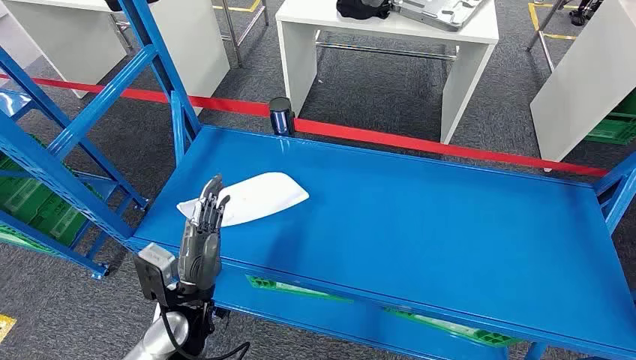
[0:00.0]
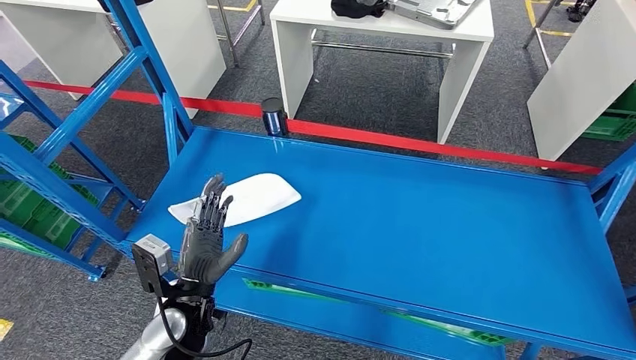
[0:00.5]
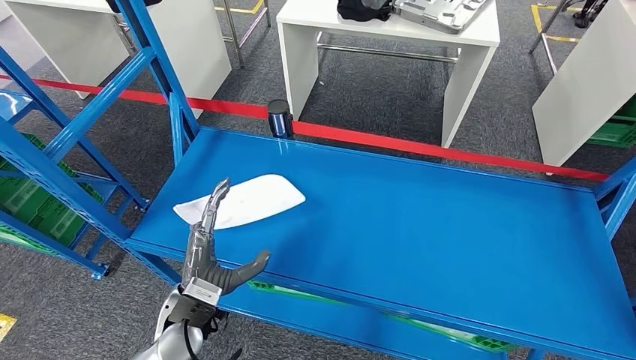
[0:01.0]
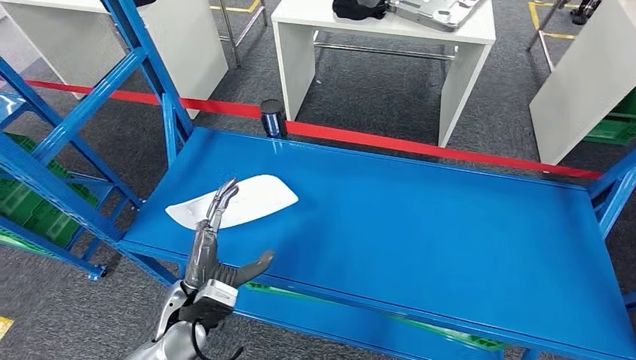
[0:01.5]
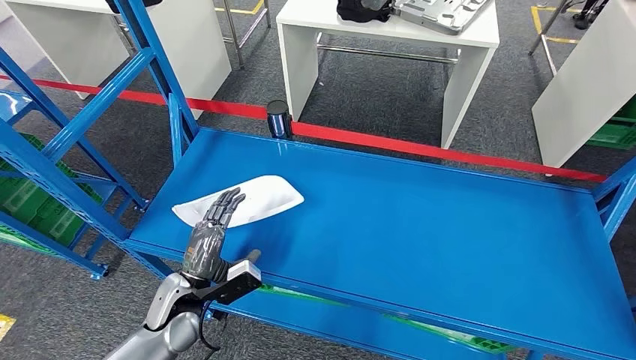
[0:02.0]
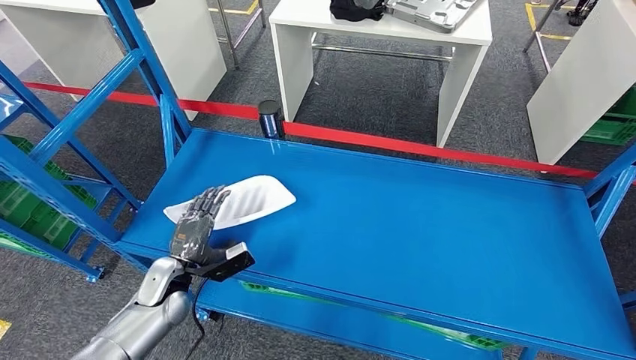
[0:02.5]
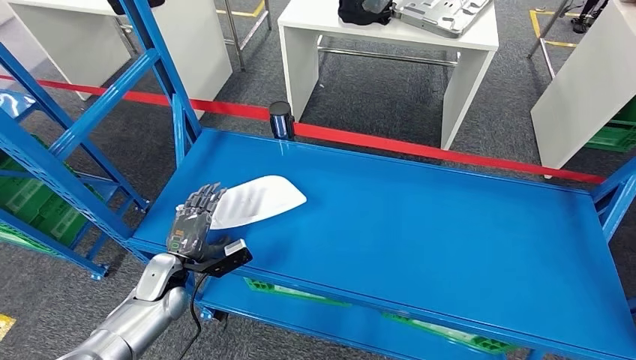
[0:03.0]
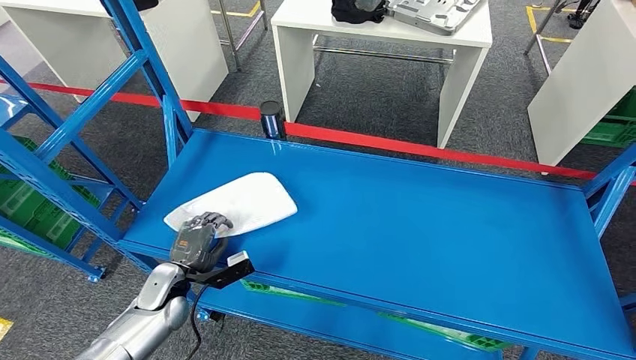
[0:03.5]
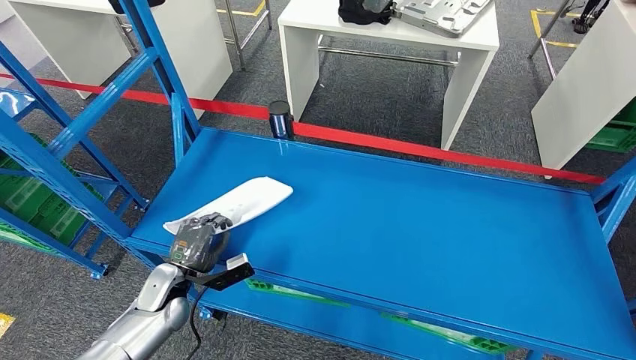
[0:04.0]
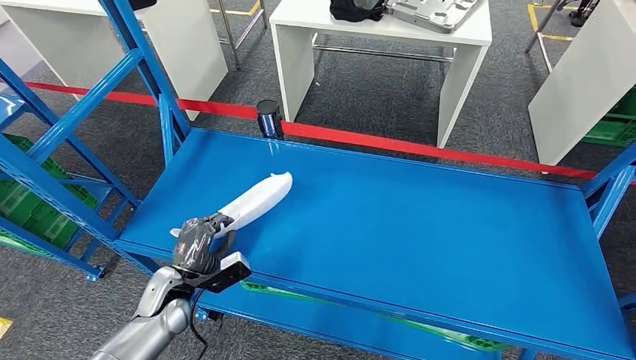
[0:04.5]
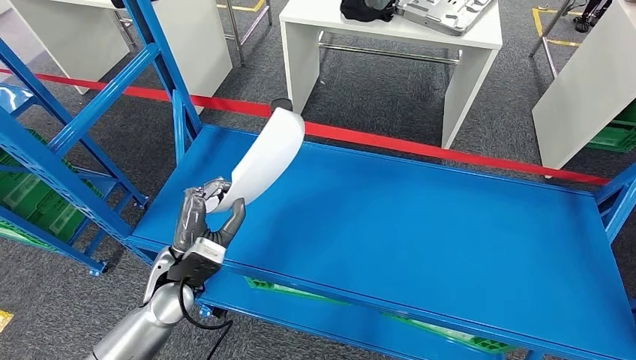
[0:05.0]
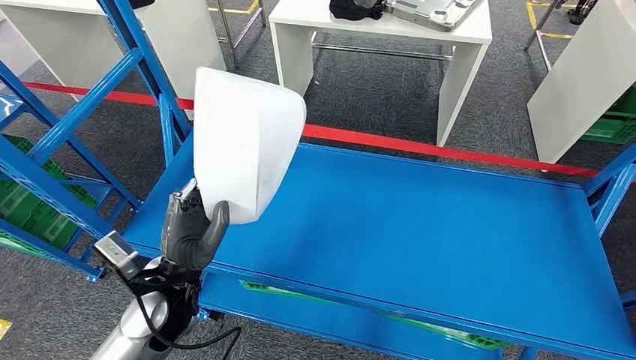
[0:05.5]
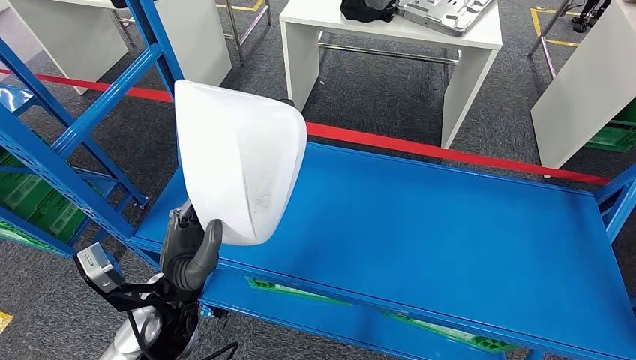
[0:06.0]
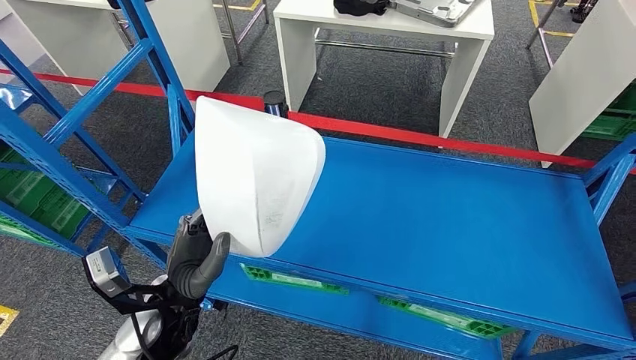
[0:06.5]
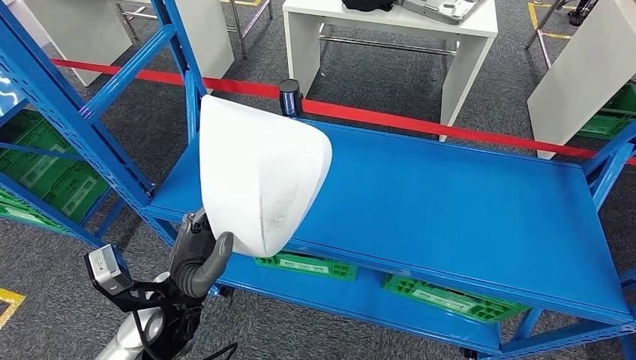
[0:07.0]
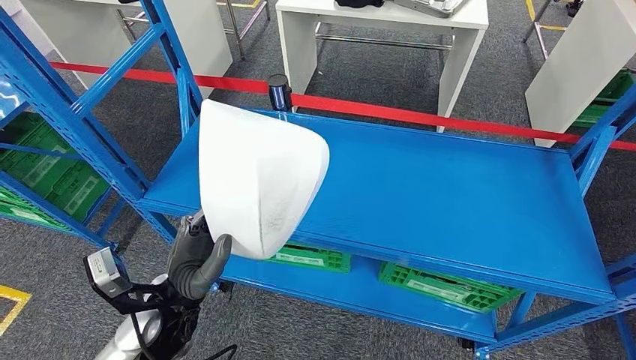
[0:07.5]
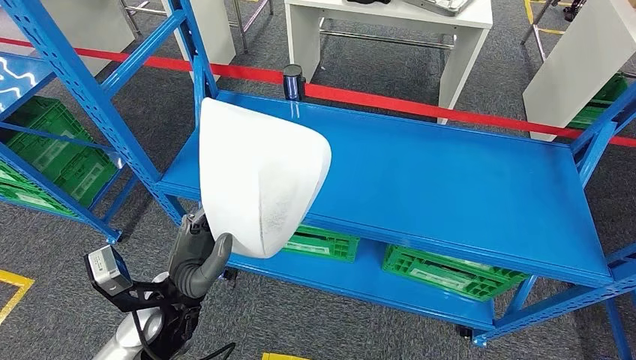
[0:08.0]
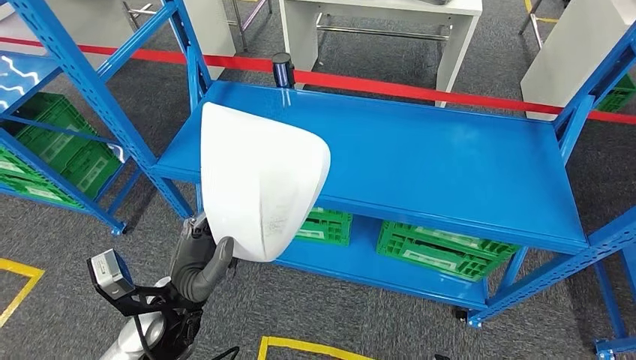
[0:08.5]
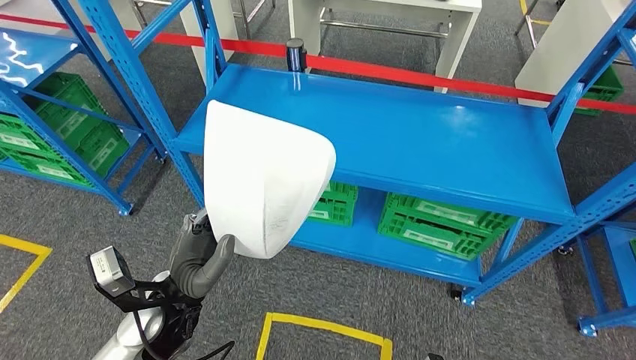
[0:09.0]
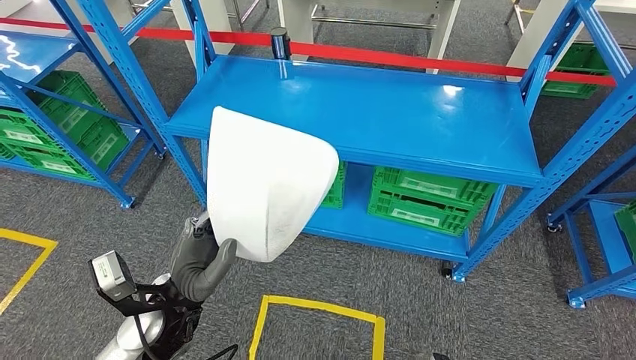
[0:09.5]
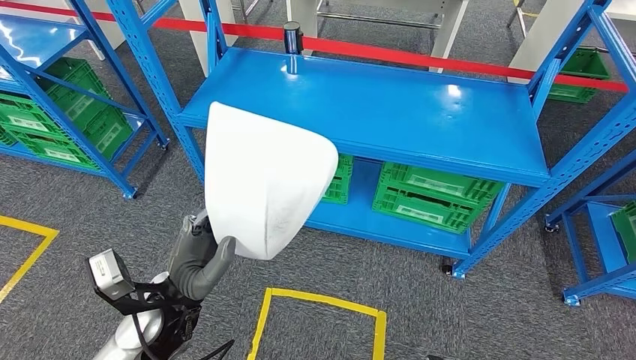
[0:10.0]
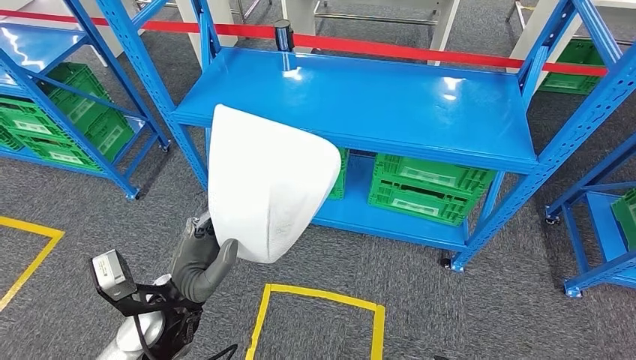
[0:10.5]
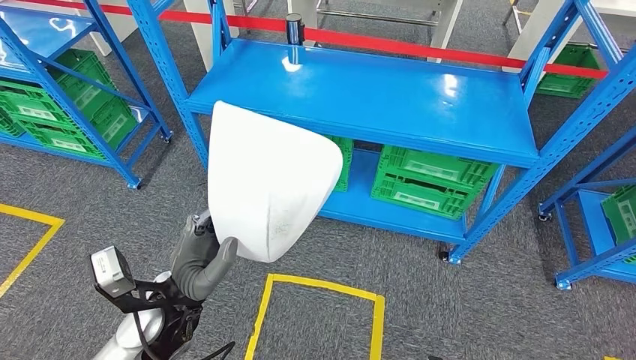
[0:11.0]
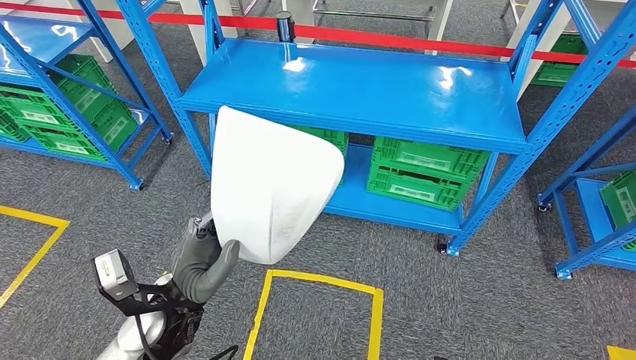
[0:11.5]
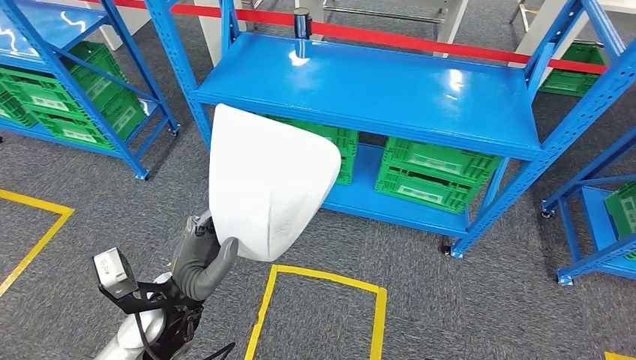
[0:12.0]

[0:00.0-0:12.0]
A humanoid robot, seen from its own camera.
Step, 0:00.0 to 0:07.0: Pick up the small parts from the shelf.
0:02.0 to 0:04.0: The left hand ends up about 5 cm from where it was.

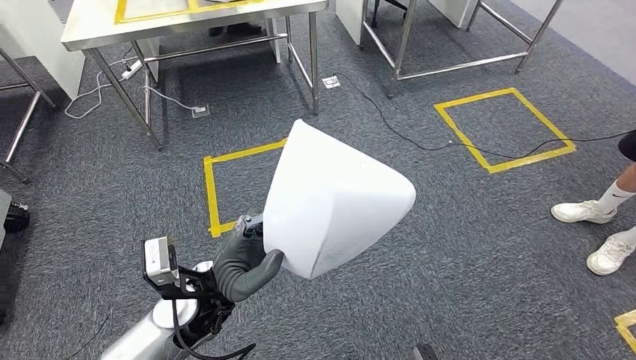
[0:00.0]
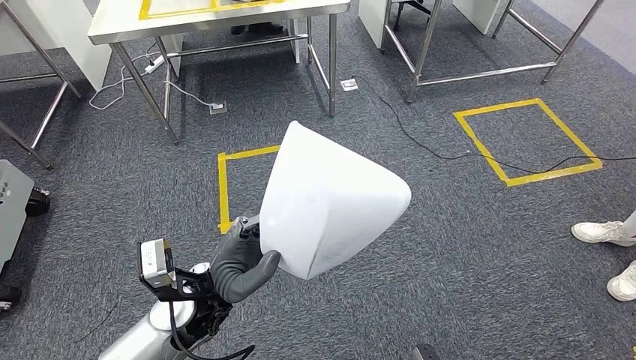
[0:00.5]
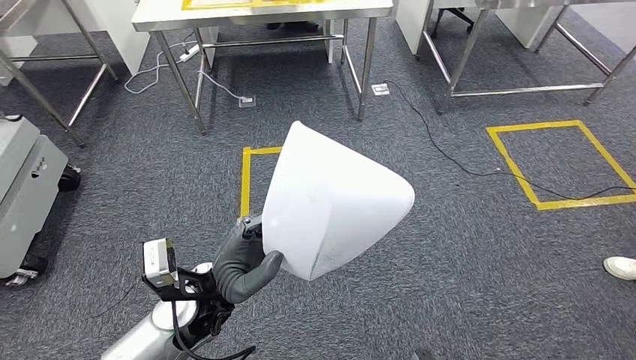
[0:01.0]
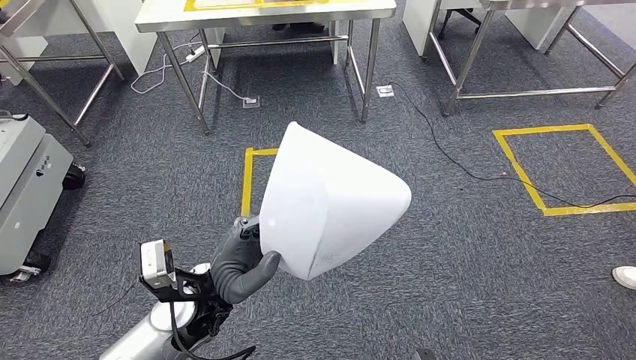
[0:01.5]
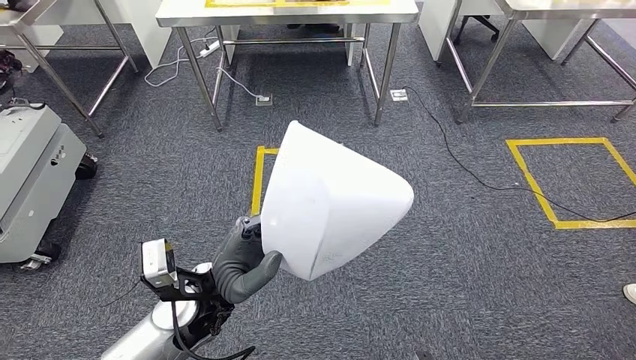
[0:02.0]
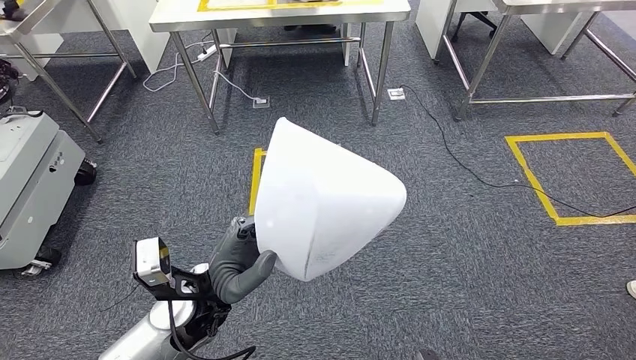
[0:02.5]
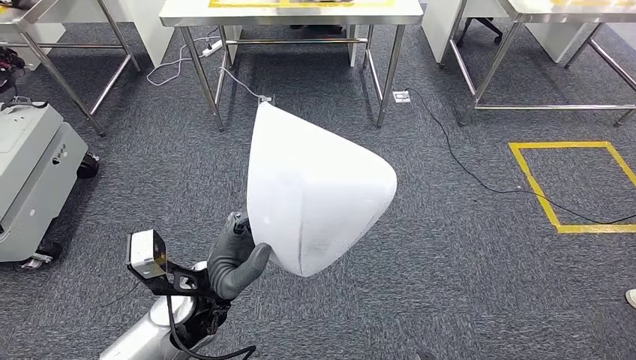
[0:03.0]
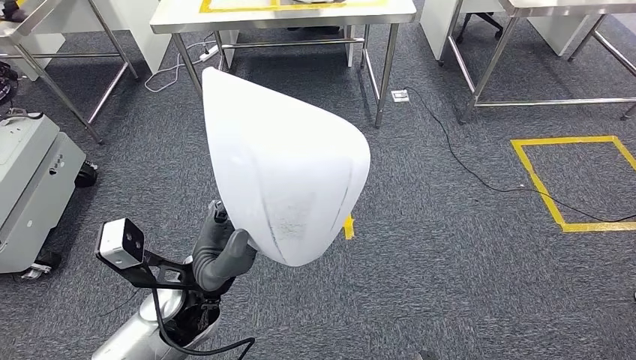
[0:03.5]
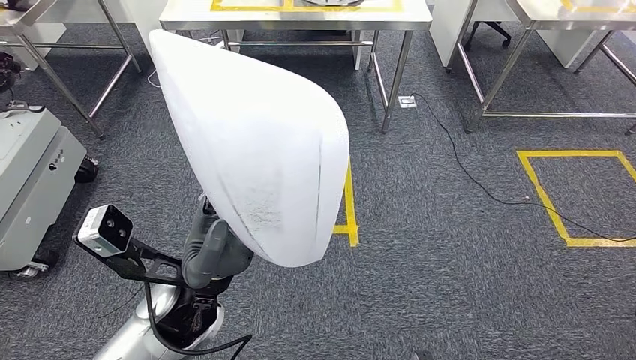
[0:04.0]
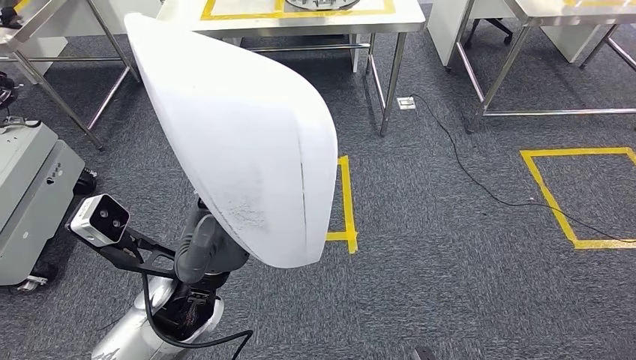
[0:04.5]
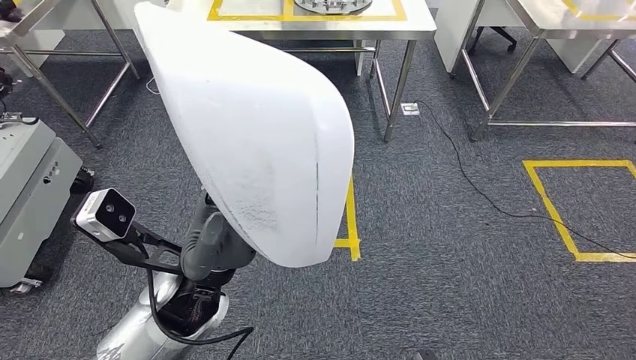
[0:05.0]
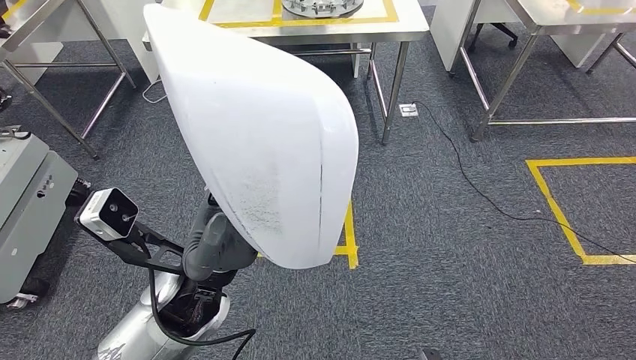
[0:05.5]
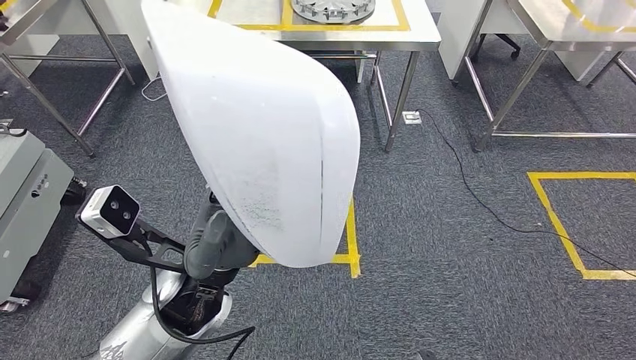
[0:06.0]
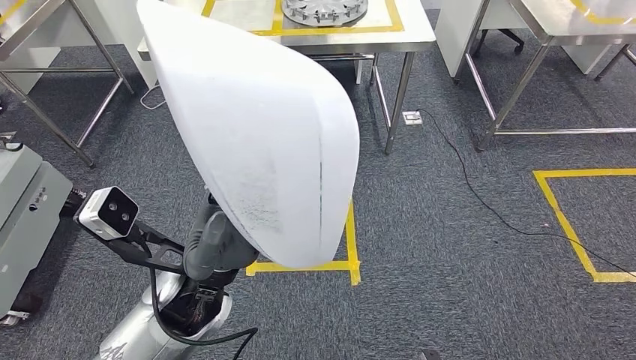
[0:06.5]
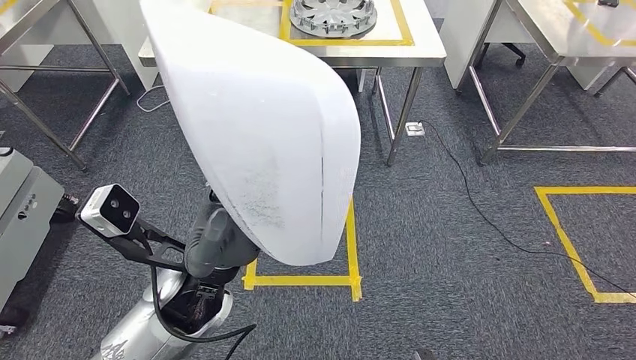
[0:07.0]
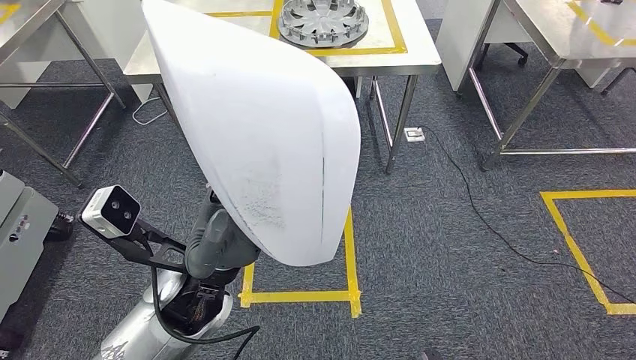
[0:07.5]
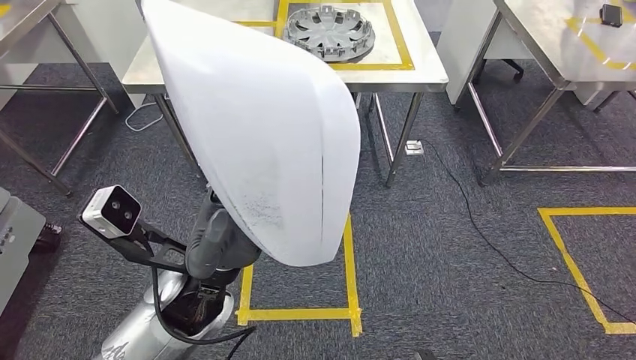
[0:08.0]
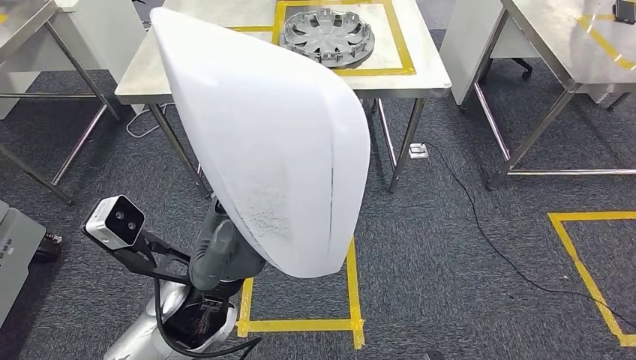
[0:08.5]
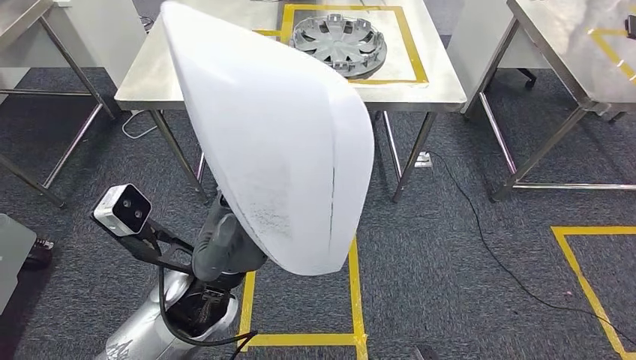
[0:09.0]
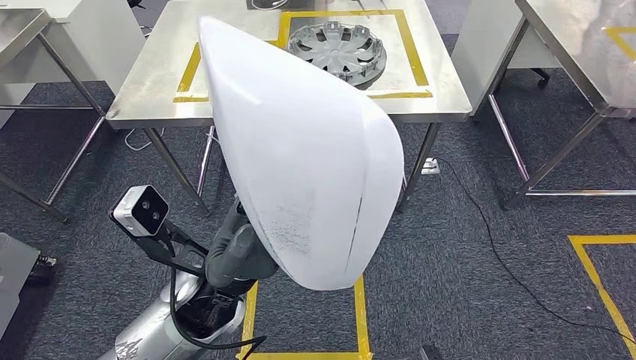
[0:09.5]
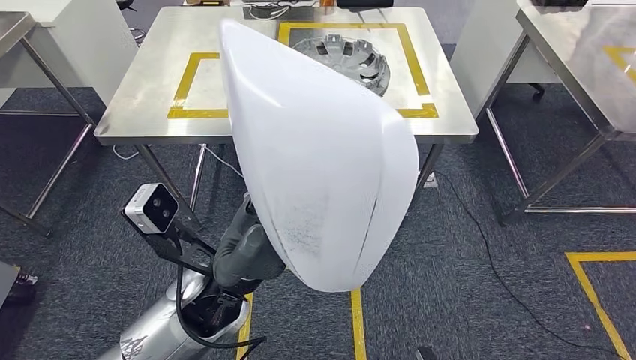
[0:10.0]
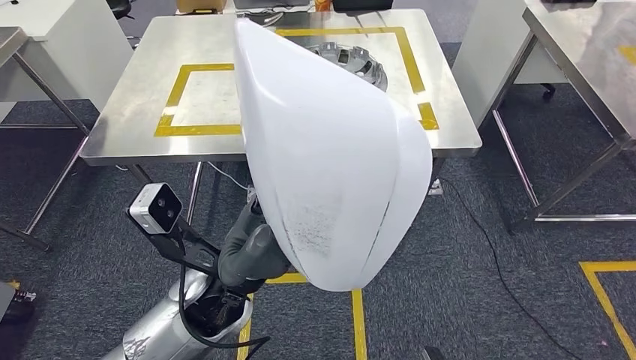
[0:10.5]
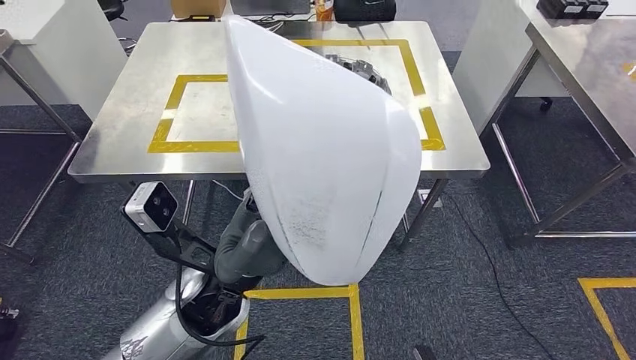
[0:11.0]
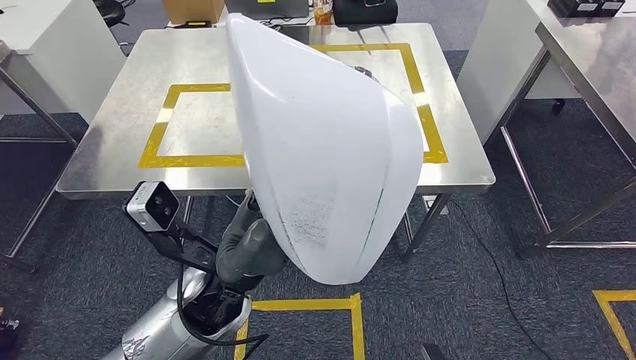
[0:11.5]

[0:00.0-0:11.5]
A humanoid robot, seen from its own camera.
Step, 0:00.0 to 0:07.0: Move the small parts to the workbench.
